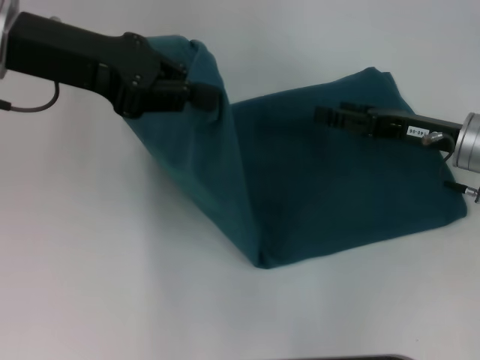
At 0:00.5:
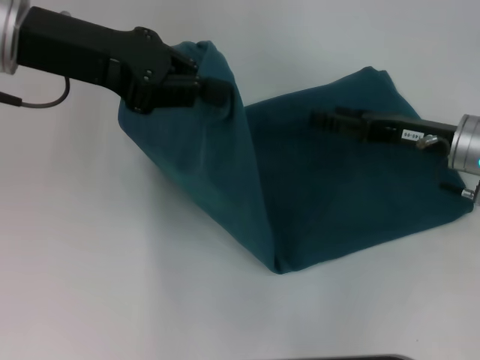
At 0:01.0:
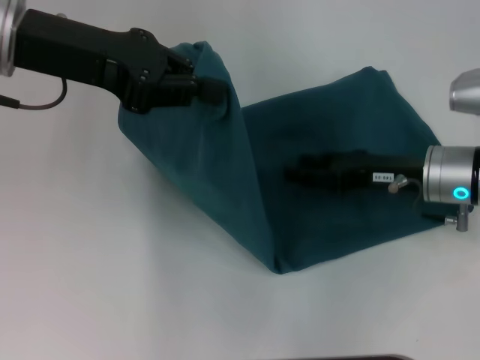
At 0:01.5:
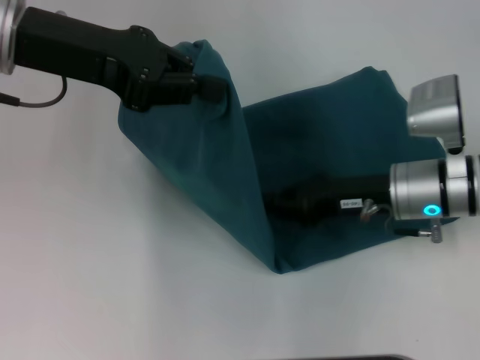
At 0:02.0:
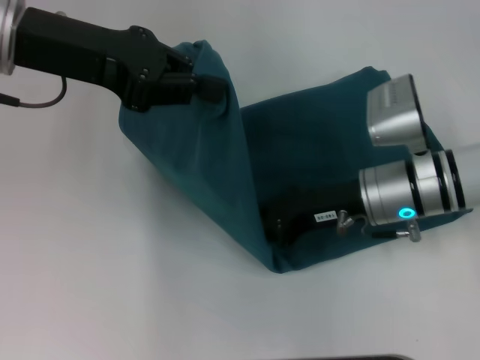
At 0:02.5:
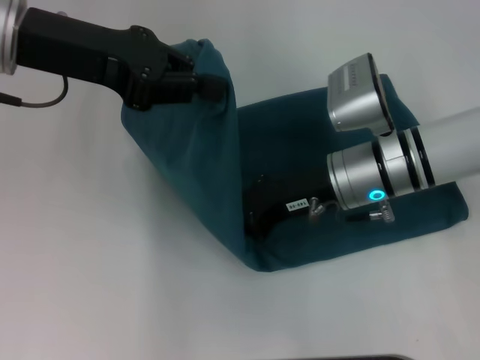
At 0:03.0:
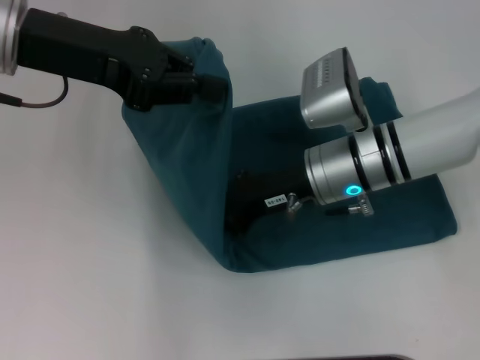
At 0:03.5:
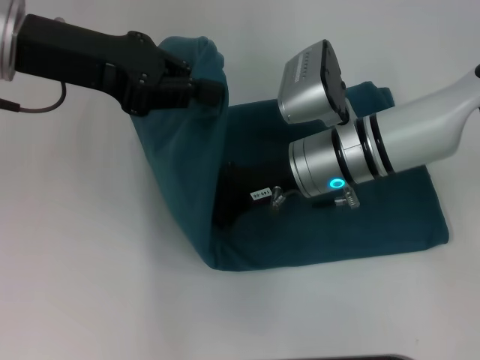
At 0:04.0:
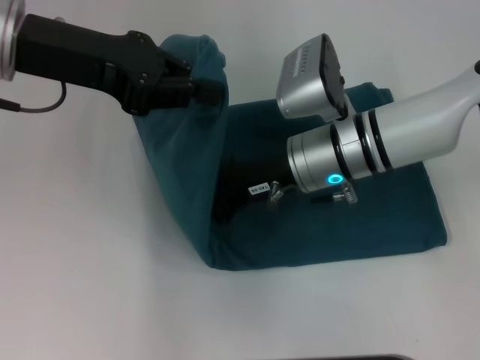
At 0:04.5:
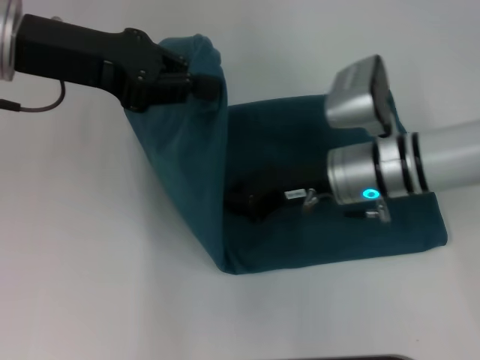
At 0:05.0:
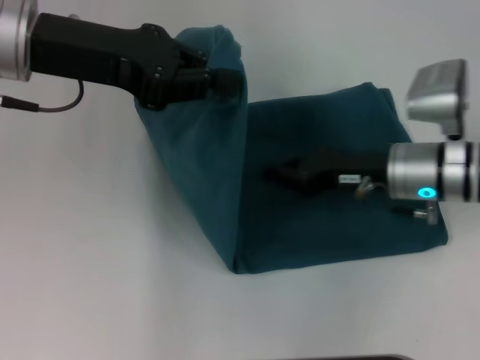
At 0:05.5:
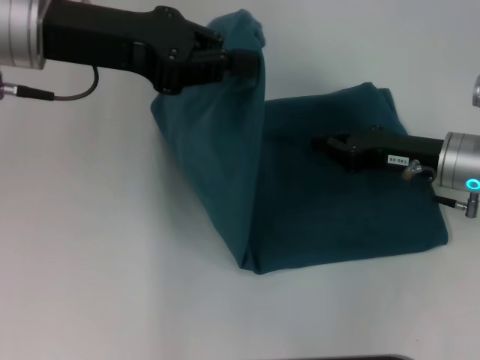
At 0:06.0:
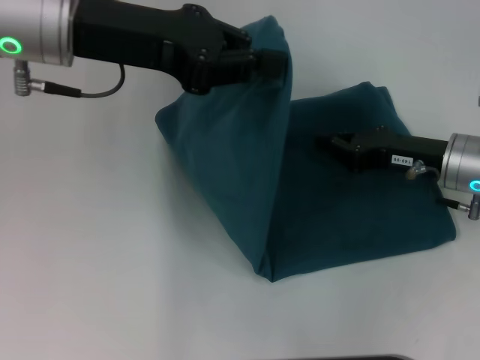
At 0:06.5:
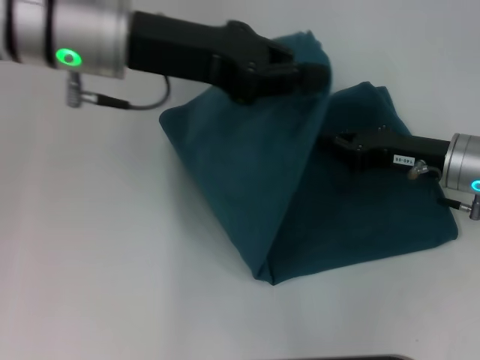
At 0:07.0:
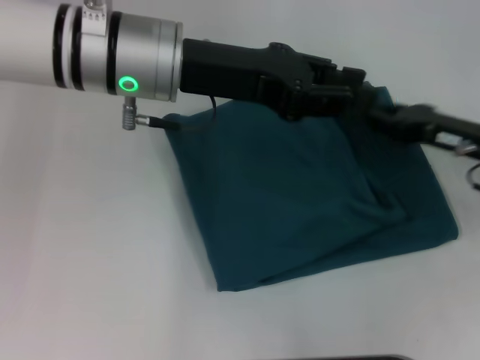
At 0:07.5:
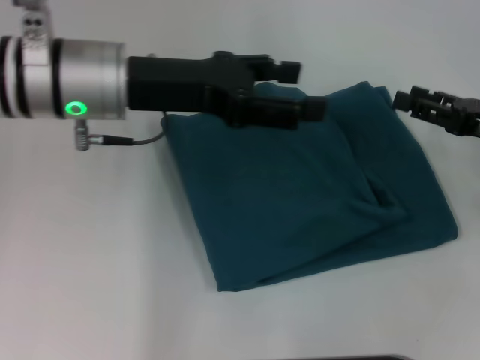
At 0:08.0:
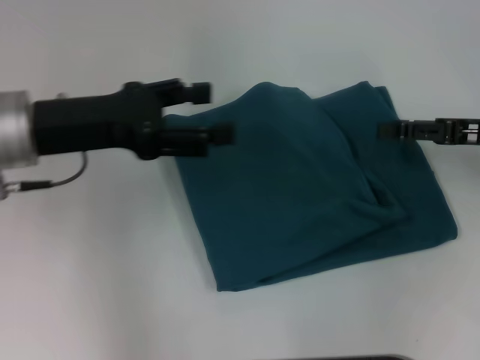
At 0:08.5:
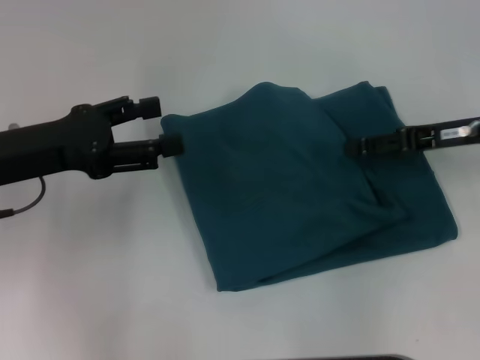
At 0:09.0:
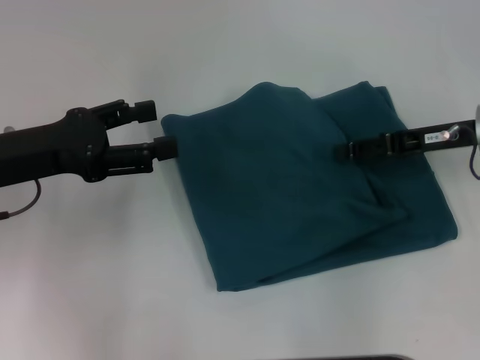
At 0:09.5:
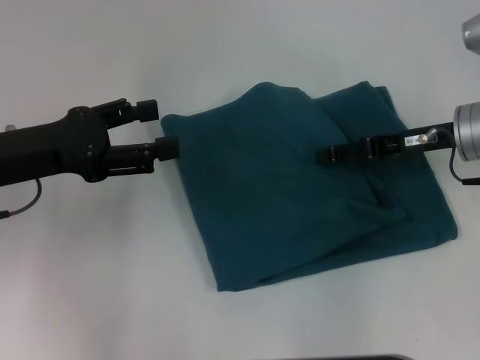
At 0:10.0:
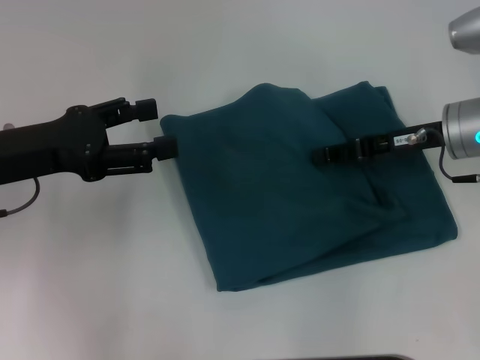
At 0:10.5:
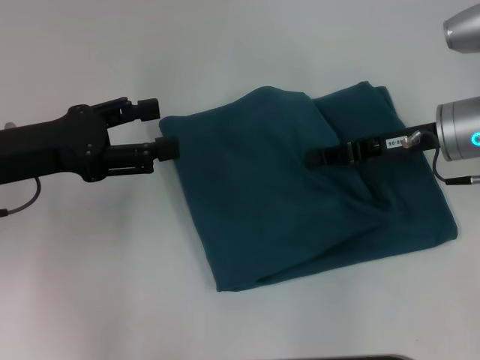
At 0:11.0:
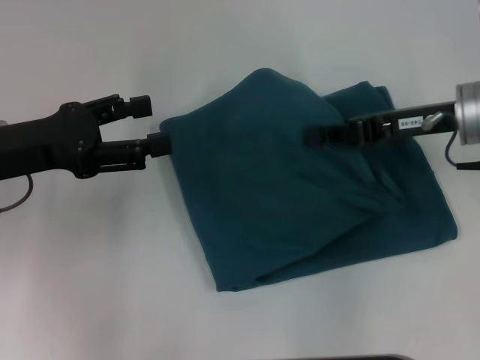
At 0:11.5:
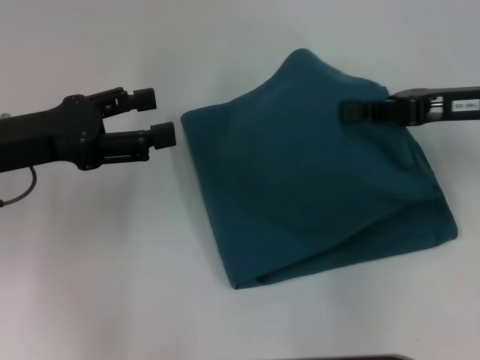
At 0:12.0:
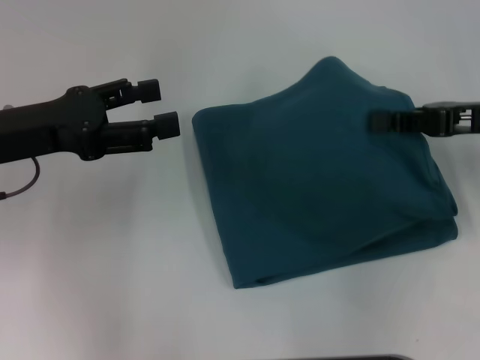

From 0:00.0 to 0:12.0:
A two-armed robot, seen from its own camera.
Step, from 0:00.0 to 0:04.5: Press the middle of the clothes with your right hand.
Step, from 0:05.0 to 0:08.0: Fold the clothes to the left.
From 0:00.0 to 0:02.0: The right gripper heads to the left, covering roughly 10 cm, and closes its fingers.
From 0:02.0 to 0:04.0: The right gripper shifts some 5 cm to the left.
From 0:04.0 to 0:06.0: The right gripper moves to the right, some 15 cm.
From 0:06.0 to 0:08.0: The right gripper shifts some 10 cm to the right and upward, and opens up, while the left gripper shifts some 10 cm downward and to the left, and opens up.
From 0:08.0 to 0:10.0: The right gripper moves to the left, about 10 cm, while the left gripper moves approximately 5 cm.
From 0:10.0 to 0:12.0: The right gripper goes roughly 5 cm to the right, and closes.

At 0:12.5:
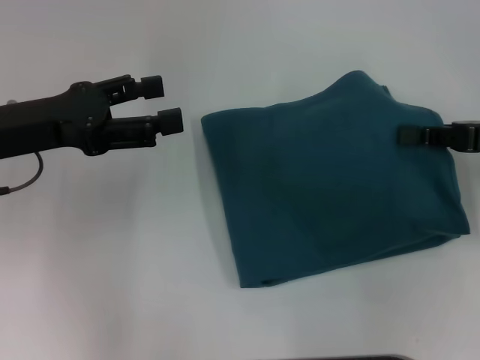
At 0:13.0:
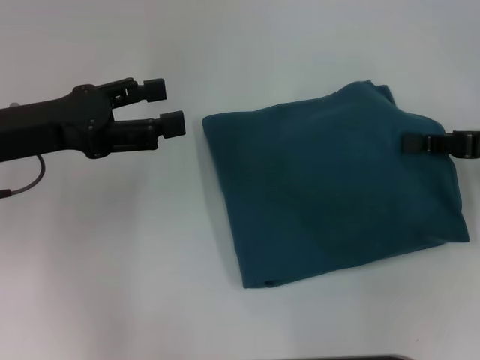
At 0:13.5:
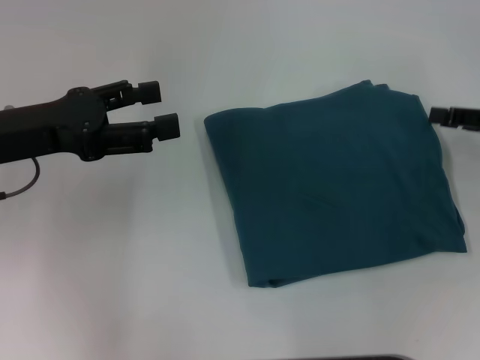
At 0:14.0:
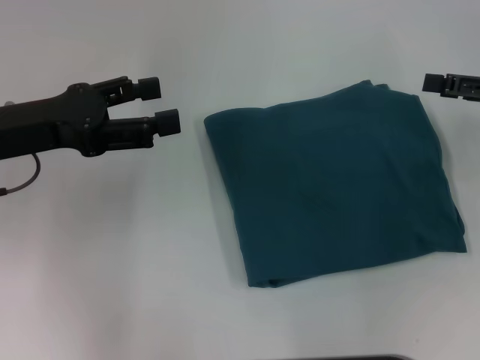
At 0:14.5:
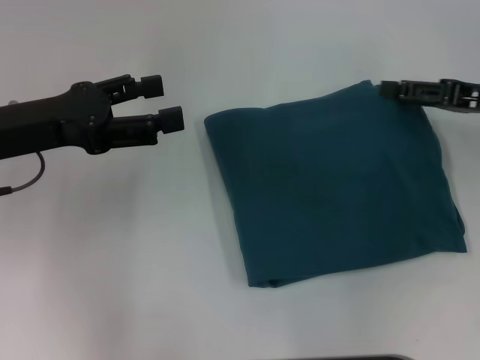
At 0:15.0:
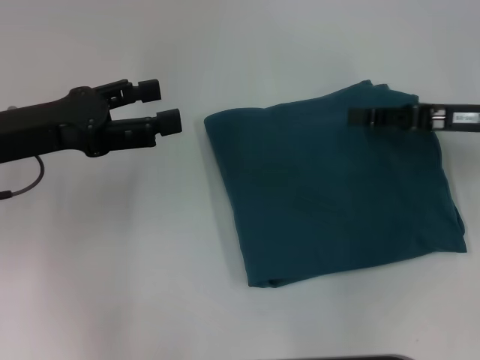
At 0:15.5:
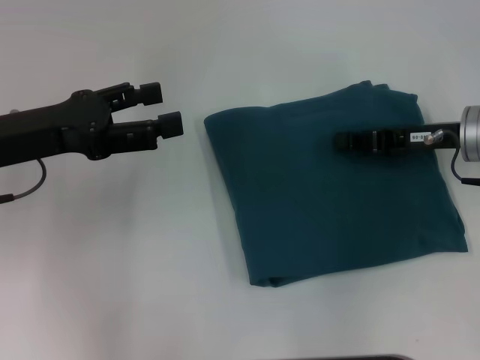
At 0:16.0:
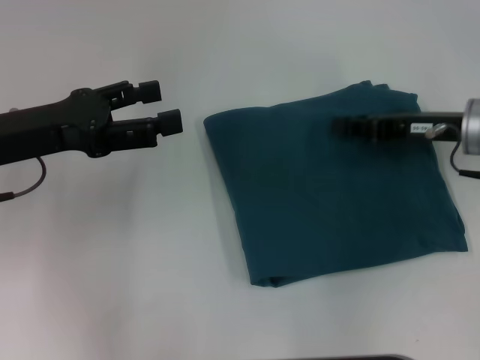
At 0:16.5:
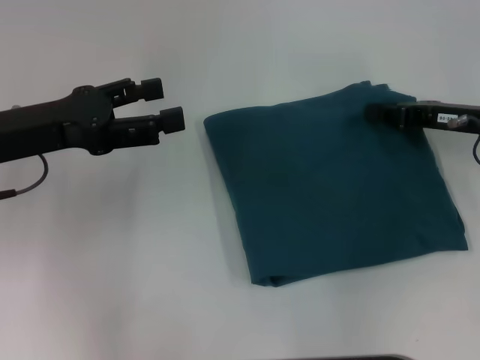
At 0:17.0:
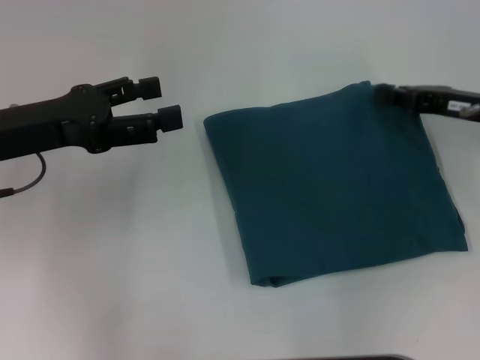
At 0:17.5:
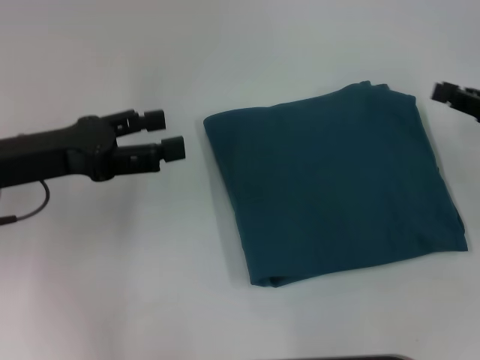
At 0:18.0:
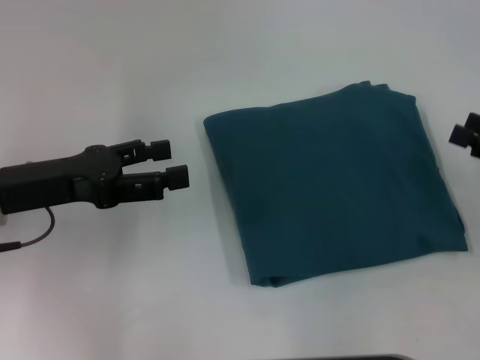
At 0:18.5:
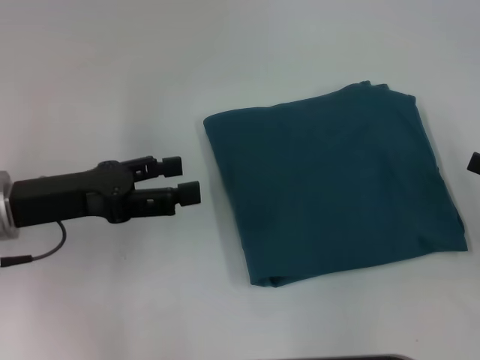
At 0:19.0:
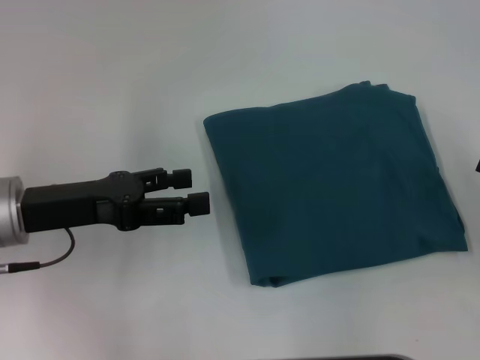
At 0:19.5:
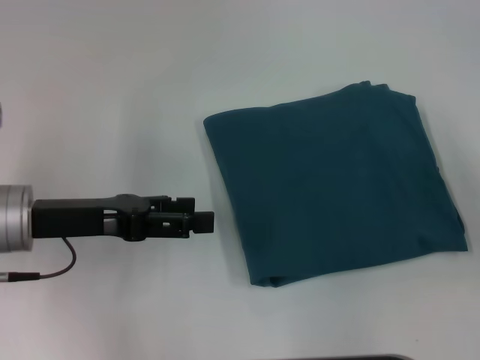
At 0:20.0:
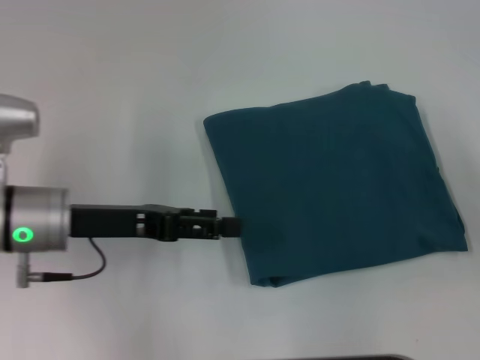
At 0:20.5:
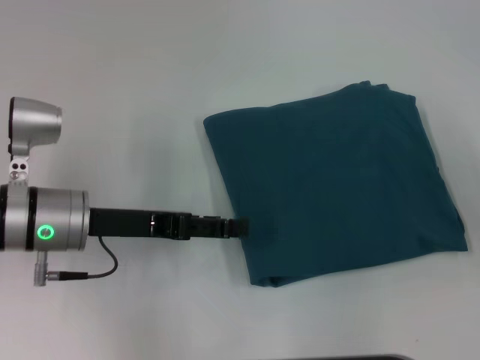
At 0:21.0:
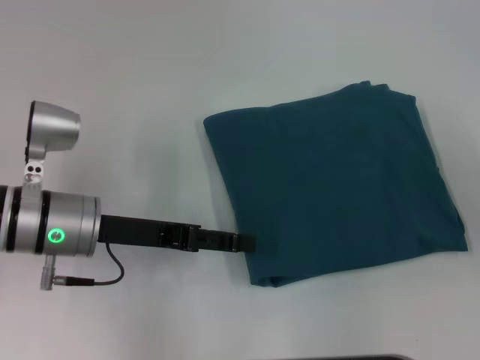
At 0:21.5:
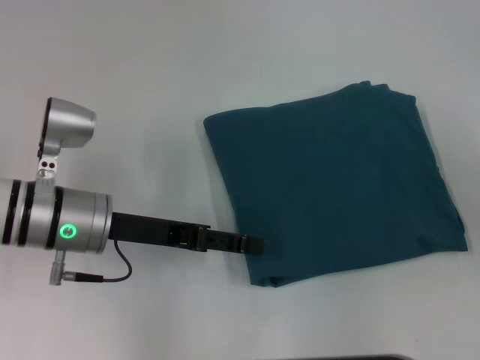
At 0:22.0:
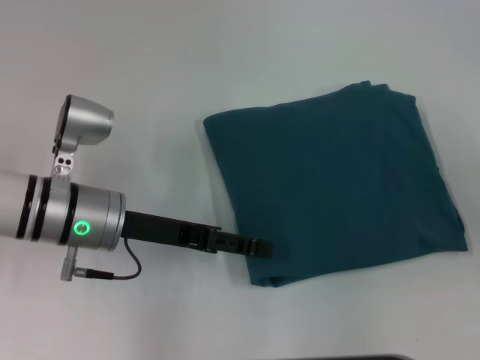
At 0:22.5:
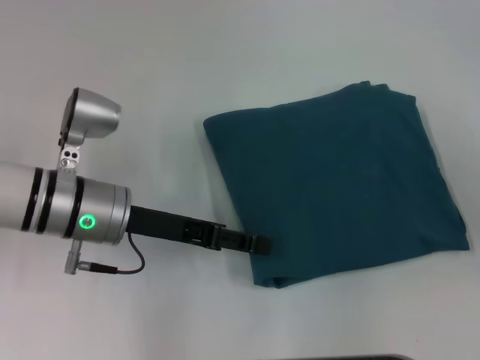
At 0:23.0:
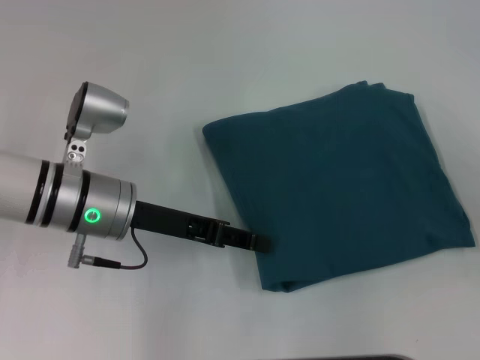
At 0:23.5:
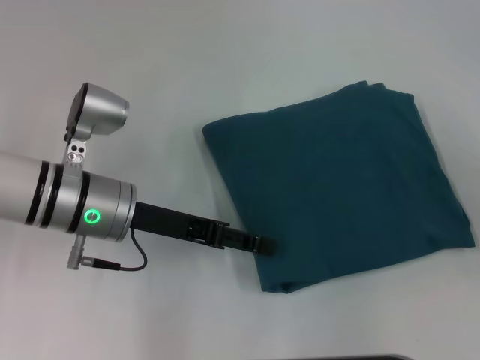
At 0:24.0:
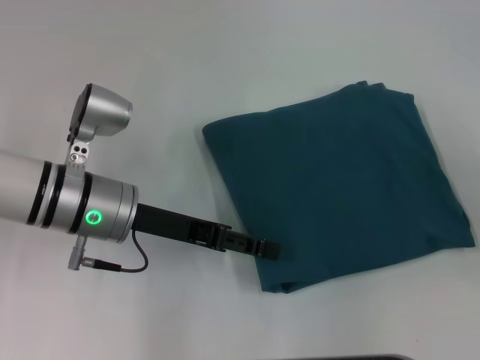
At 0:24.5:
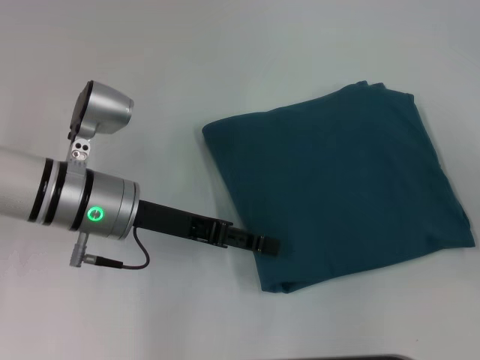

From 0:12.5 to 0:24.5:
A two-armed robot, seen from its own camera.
From 0:12.5 to 0:14.5: The right gripper opens up.
From 0:14.5 to 0:16.5: The right gripper shifts by about 5 cm, and closes its fingers.
From 0:16.5 to 0:18.5: The right gripper is displaced backward and to the right by about 15 cm, and opens.
From 0:18.5 to 0:20.5: The left gripper shifts by roughly 5 cm.
From 0:20.5 to 0:22.5: The grippers move only a little.
From 0:22.5 to 0:24.5: The left gripper closes, then reopens.

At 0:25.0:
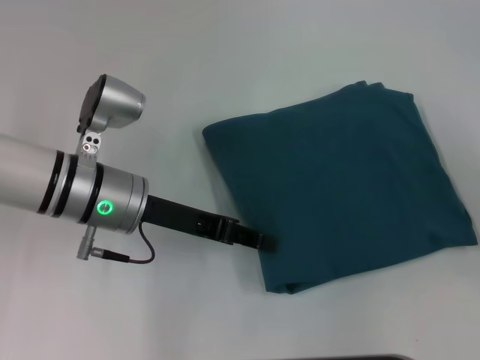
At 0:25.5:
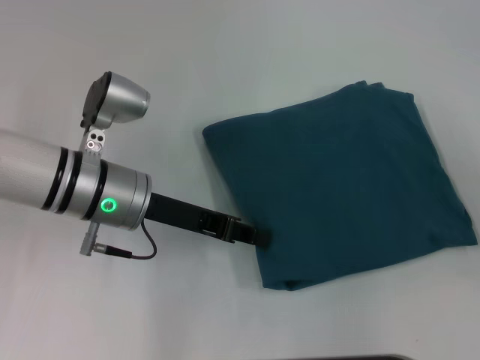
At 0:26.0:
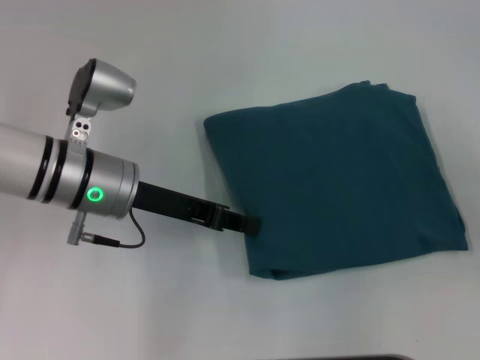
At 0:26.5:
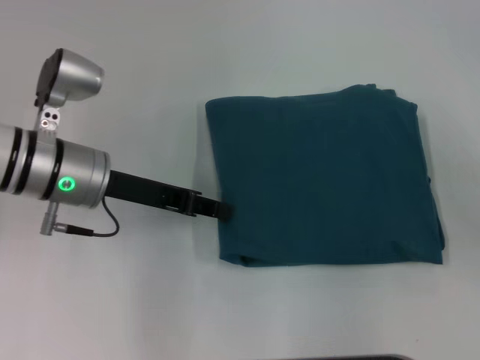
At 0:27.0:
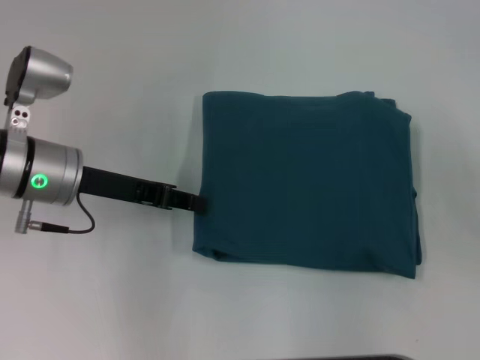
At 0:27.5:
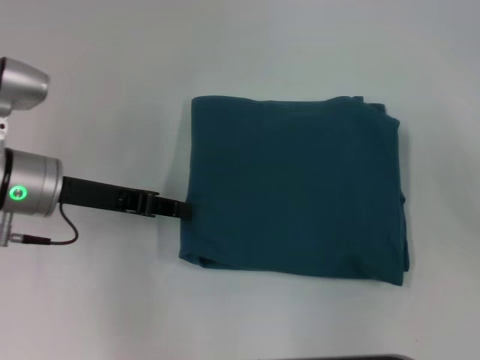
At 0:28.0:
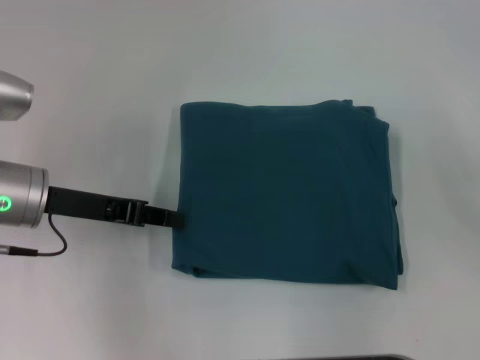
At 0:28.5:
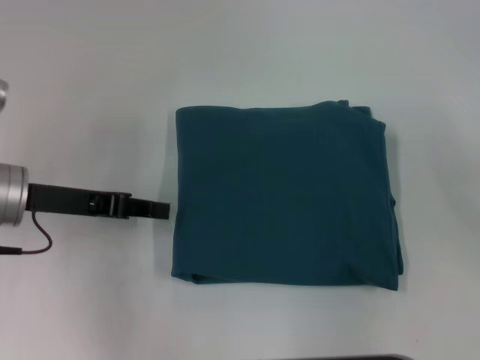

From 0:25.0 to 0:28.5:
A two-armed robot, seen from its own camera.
From 0:25.0 to 0:27.0: The left gripper heads to the left, covering approximately 5 cm, and closes its fingers.
From 0:27.0 to 0:28.5: The left gripper changes place by roughly 5 cm.
